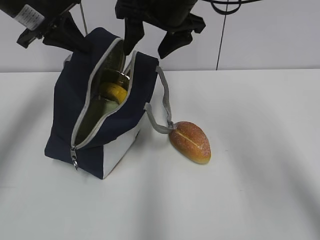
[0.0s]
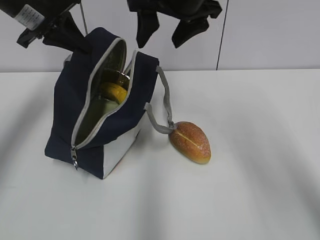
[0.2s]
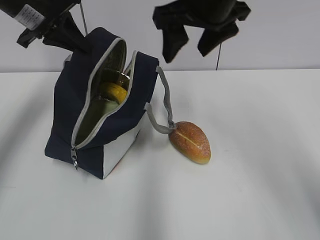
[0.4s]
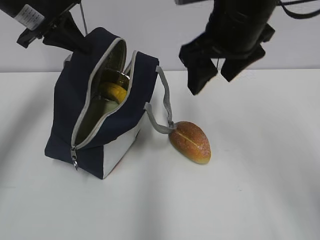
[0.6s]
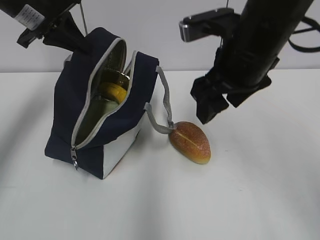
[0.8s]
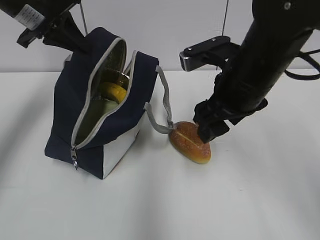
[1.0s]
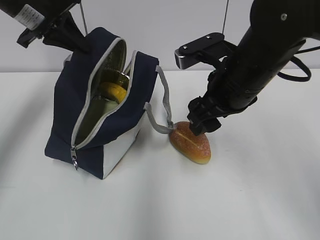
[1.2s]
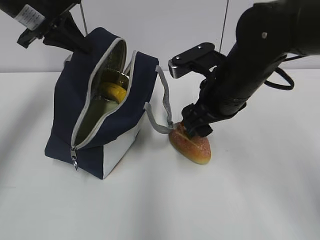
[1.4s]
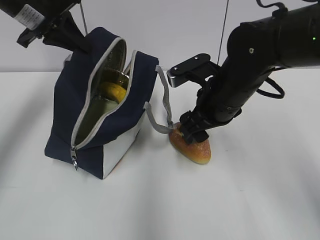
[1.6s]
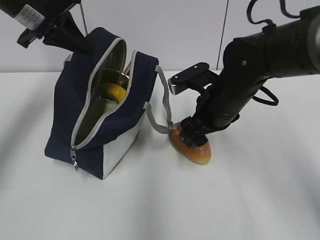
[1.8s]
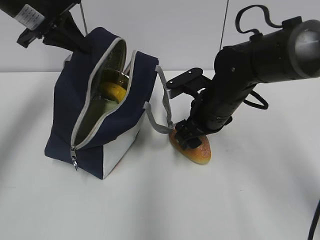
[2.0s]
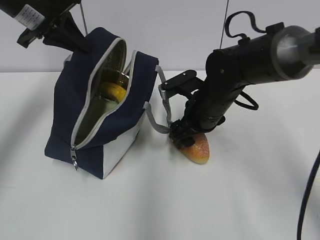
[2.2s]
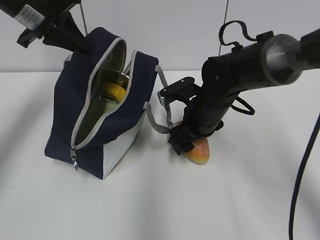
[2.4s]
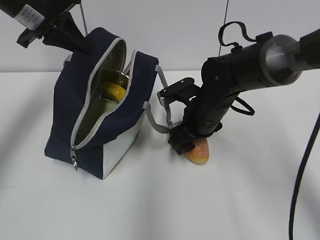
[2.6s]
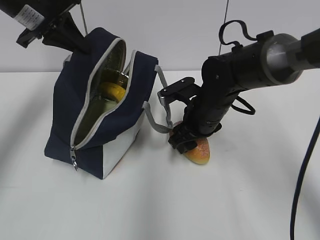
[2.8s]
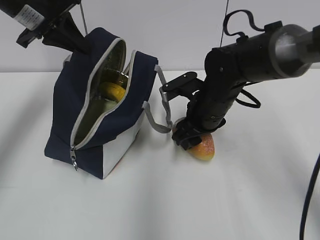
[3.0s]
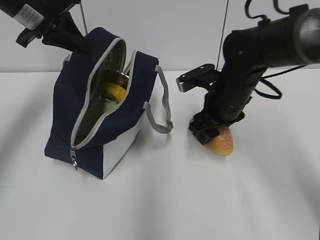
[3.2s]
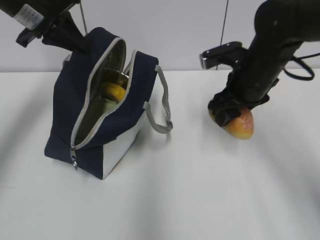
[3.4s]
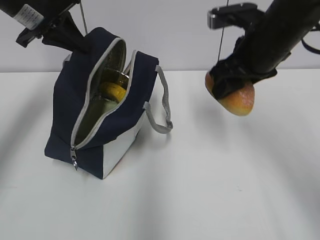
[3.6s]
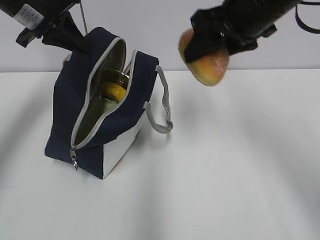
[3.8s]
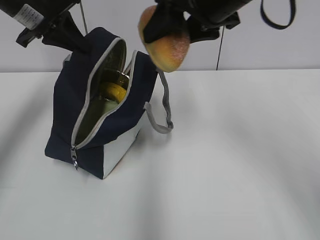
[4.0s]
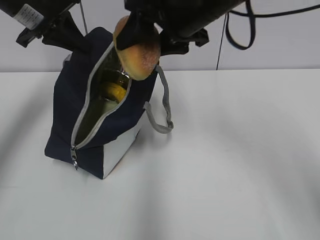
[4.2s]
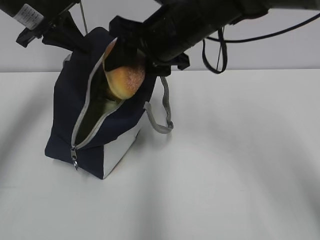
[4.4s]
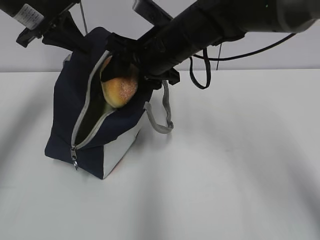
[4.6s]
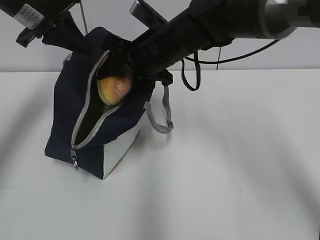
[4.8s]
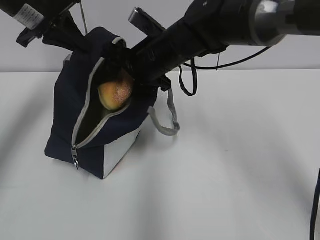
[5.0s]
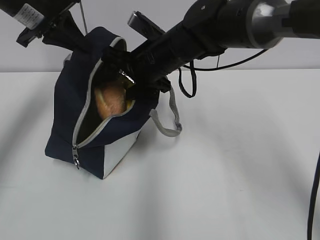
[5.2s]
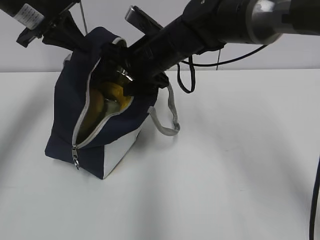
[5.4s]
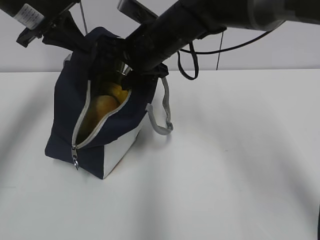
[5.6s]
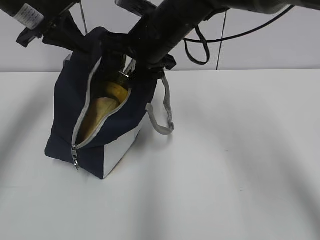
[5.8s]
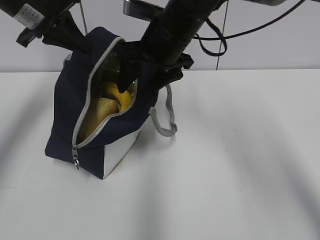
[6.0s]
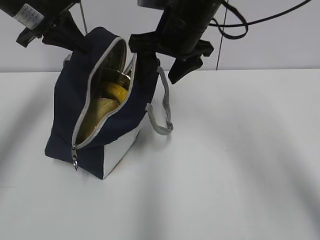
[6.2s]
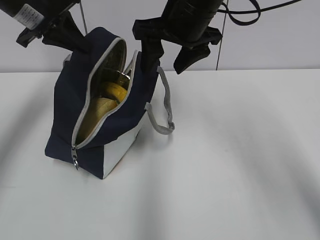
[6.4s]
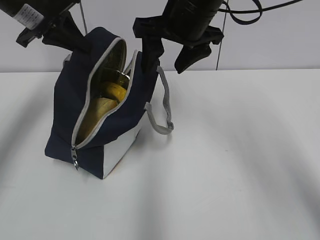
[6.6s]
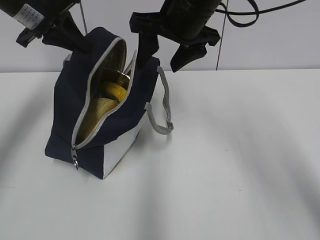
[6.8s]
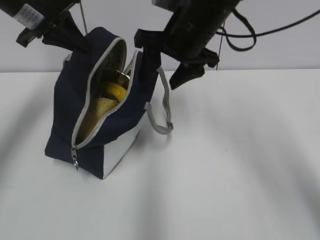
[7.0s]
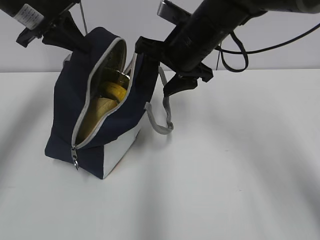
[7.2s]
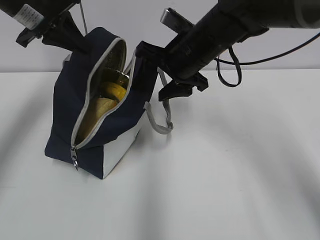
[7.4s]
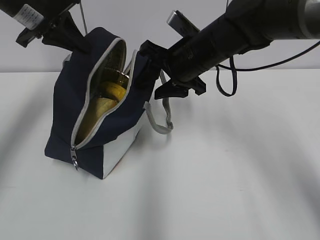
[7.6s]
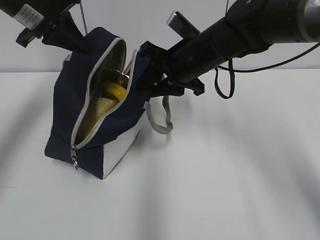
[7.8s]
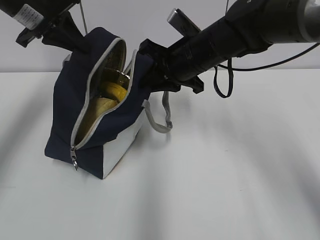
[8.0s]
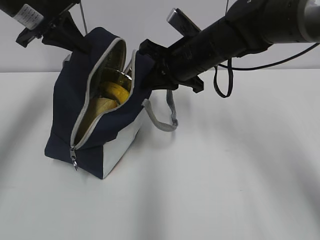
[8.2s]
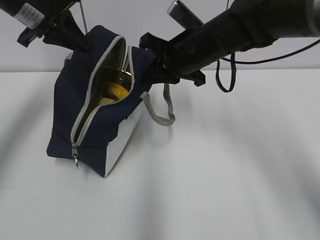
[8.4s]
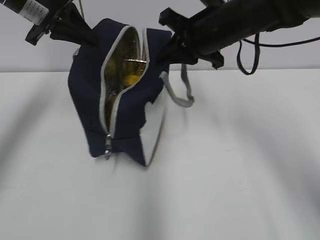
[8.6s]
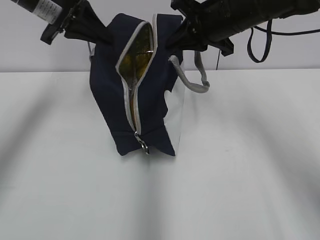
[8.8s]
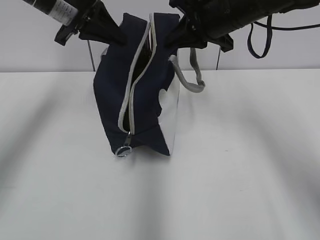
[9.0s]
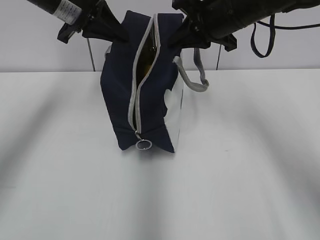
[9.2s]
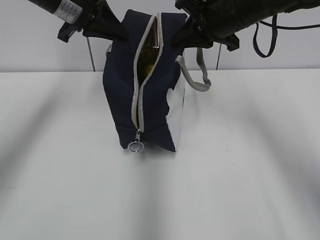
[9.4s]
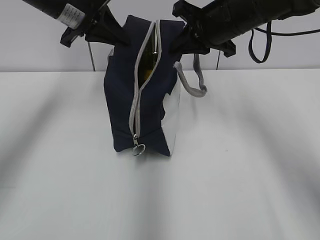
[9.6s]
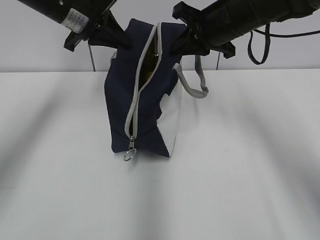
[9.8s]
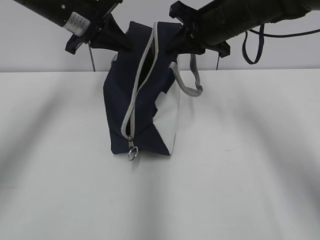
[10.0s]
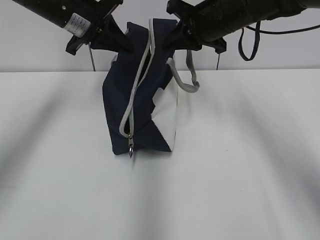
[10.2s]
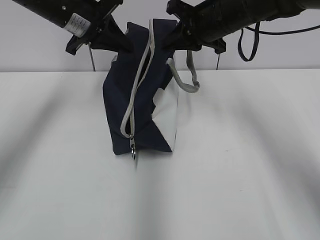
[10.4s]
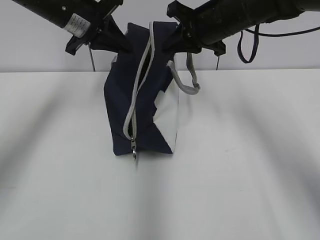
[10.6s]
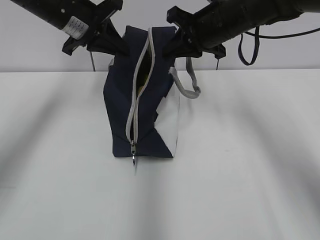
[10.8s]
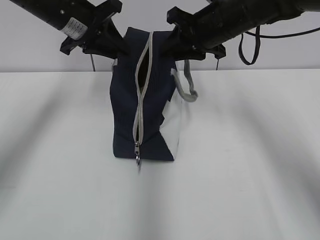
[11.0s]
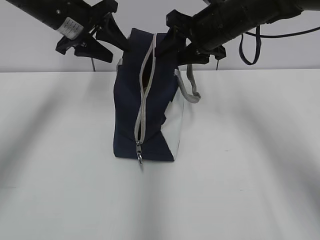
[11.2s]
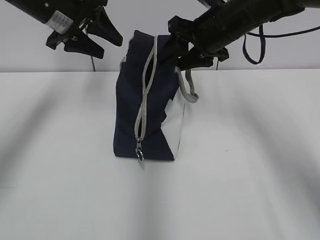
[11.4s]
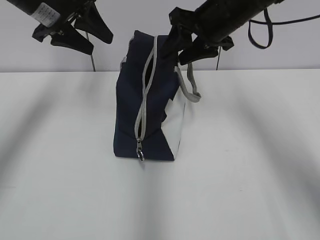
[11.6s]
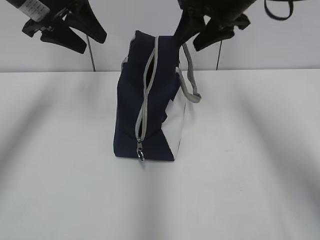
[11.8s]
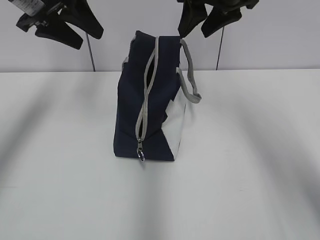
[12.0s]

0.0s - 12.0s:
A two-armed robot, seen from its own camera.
Step, 0.0s - 2.6s: Grab the bread with your right hand.
Step, 5.6s - 8.0s: Grab the lunch bag with your right hand.
Step, 8.4s - 11.0s: Move the lunch bag to the right.
0.0s - 1.6s: The right gripper is displaced downward, backward and to the right by about 15 cm.
1.6s - 3.0s: The right gripper goes approximately 5 cm downward.
3.0s - 4.4s: The right gripper shifts approximately 15 cm upward and to the left.
6.0s - 7.6s: The right gripper shifts by some 5 cm.
7.6s - 9.0s: The left gripper shifts approximately 5 cm to the right. The right gripper heads upward, covering about 5 cm, and closes.
9.0s - 10.4s: The grippers move only a little.
10.4s - 12.0s: The left gripper ends up approximately 5 cm from where it was, and opens its fingers. Meanwhile the right gripper heads upward, covering approximately 5 cm, and opens up.

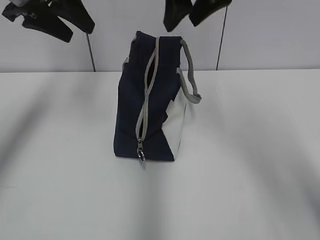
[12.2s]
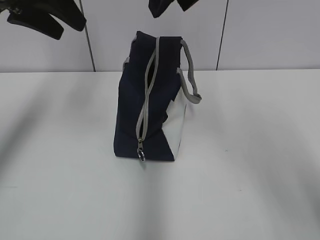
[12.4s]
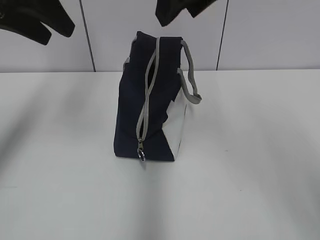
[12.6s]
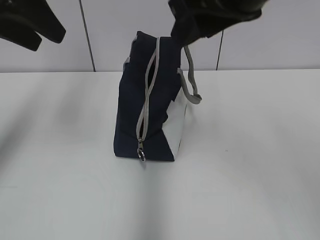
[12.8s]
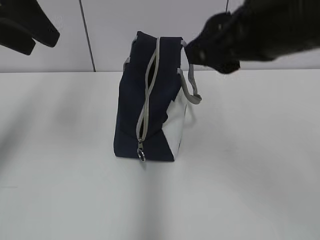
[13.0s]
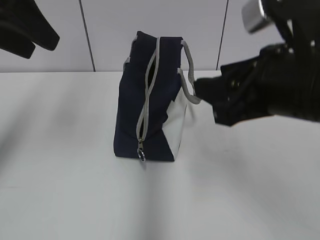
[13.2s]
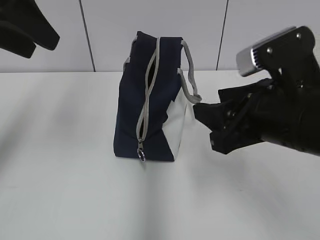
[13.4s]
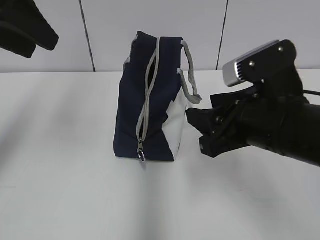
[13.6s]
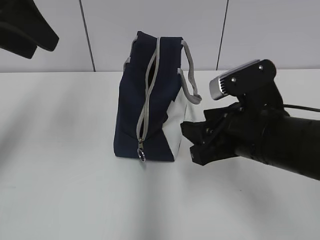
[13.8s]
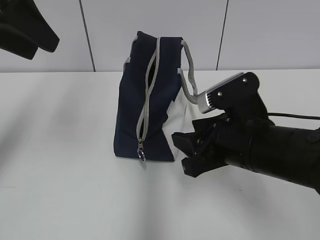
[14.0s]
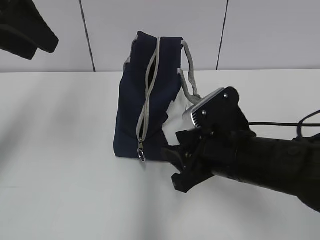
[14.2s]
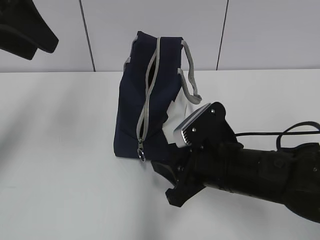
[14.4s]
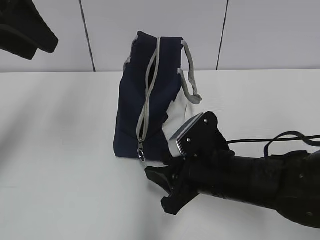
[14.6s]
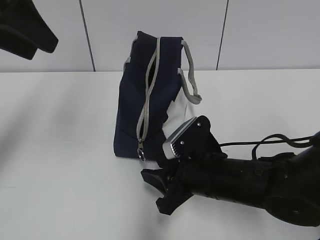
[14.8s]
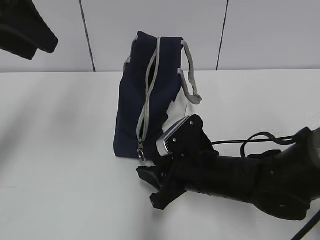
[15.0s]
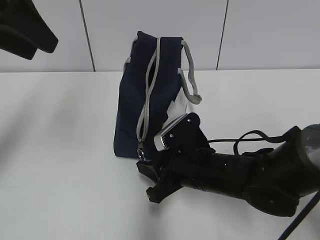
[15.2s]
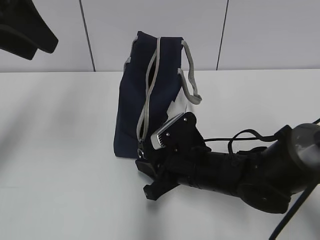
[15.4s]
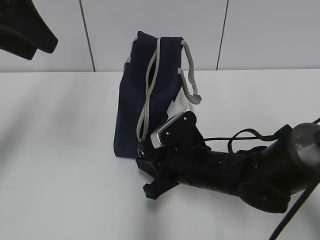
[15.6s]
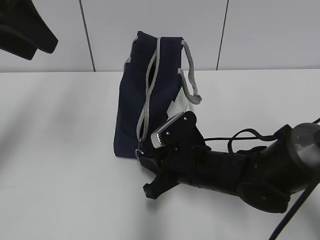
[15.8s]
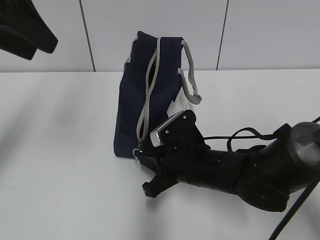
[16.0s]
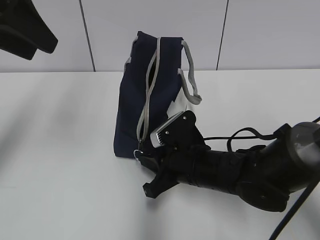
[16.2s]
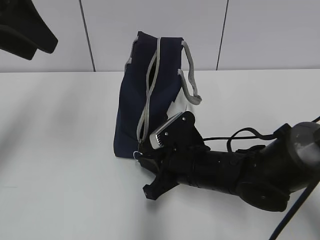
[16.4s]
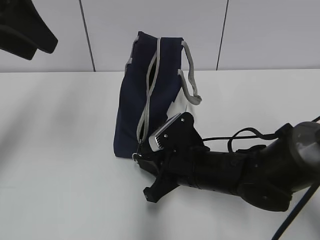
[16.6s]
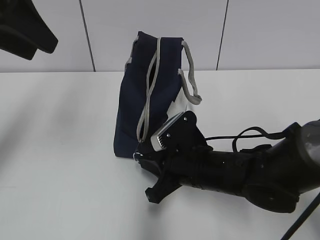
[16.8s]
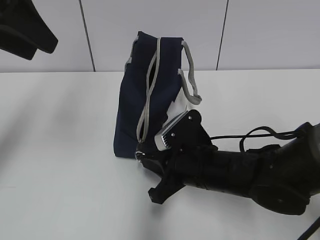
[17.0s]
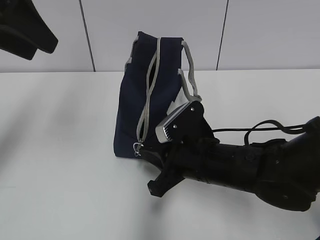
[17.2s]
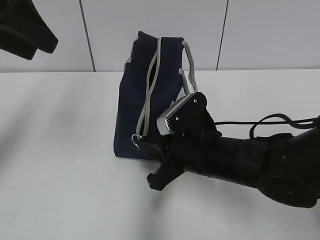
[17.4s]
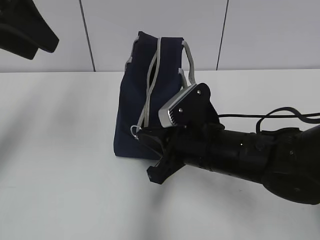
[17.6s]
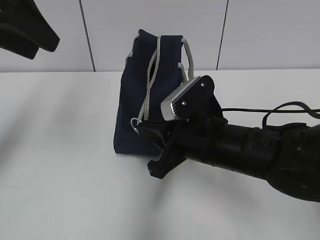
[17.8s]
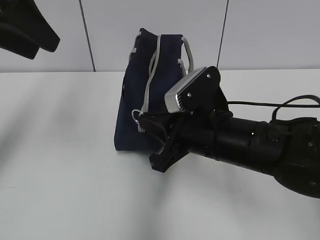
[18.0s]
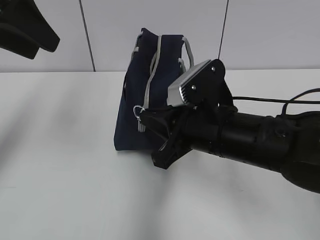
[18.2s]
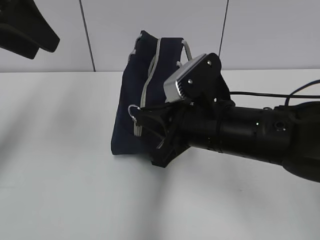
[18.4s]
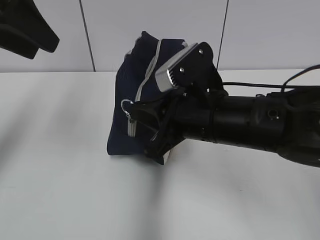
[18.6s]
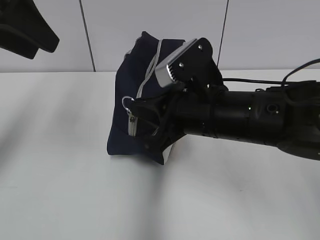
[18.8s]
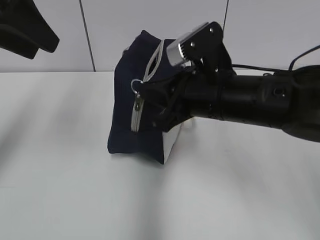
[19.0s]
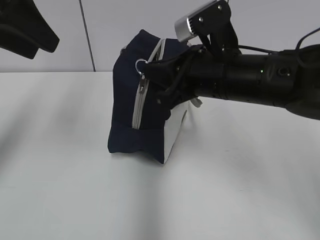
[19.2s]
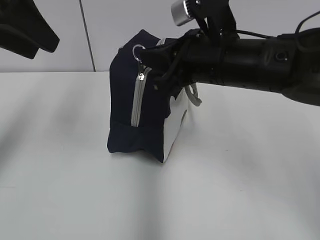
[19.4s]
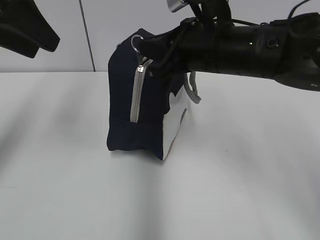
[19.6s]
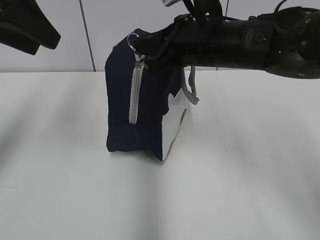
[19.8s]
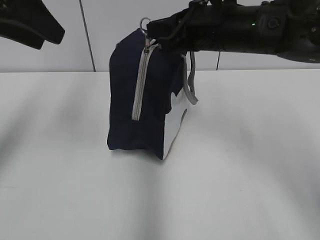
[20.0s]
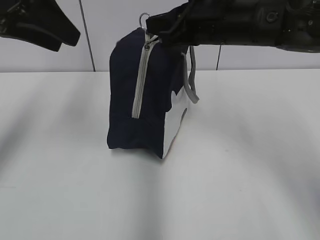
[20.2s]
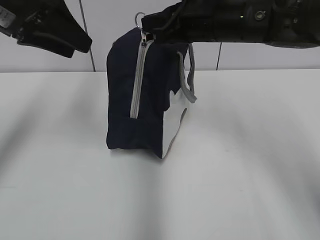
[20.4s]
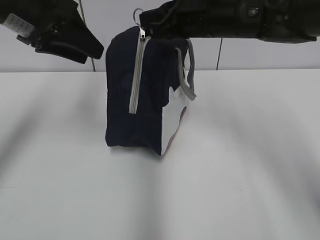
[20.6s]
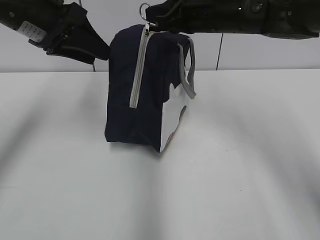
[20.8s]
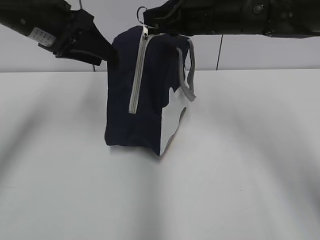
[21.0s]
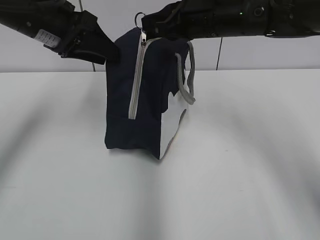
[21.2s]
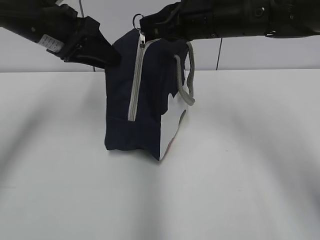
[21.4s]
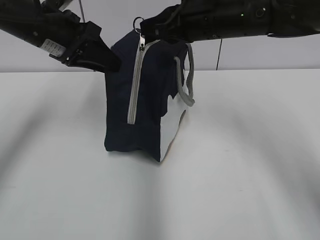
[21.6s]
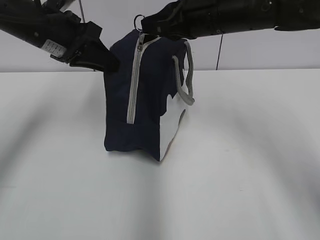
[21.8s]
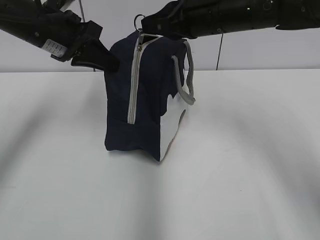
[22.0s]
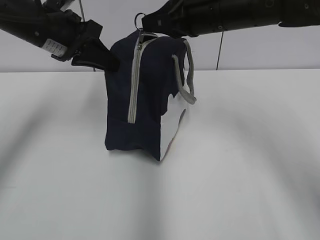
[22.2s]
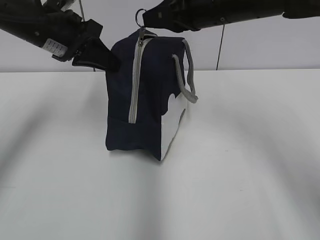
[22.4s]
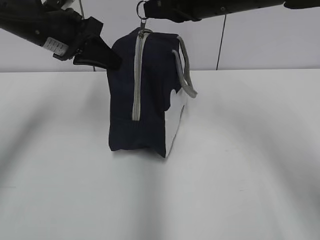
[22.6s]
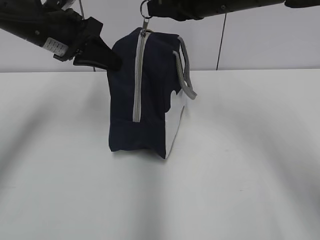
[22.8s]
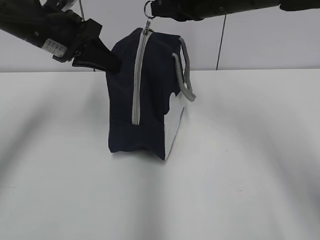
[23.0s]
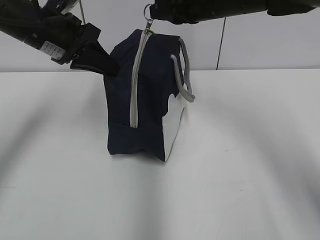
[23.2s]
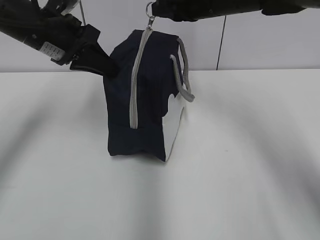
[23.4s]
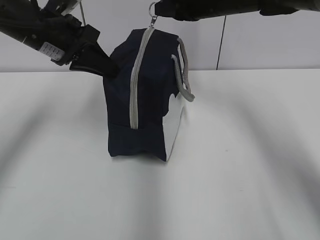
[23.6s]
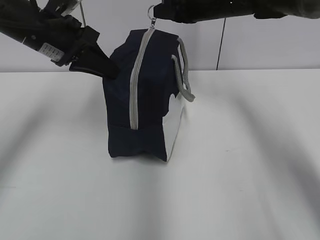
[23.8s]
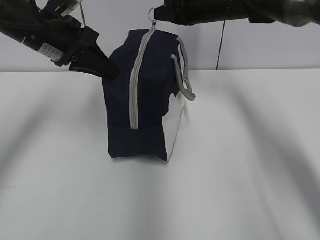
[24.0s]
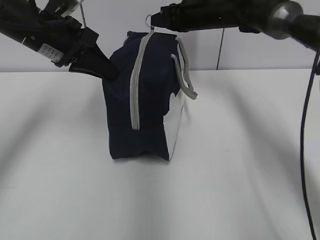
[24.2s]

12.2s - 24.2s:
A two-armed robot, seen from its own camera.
Step, 12.2s - 22.0s: Grab the lunch bag with your left hand.
12.2s - 13.8s: The right gripper goes approximately 25 cm downward and backward. Meanwhile the left gripper moves backward, about 10 cm.
13.8s - 15.2s: The right gripper heads downward and to the left, covering some 10 cm.
15.2s - 16.6s: The right gripper closes up.
16.6s - 18.2s: The right gripper heads upward, covering some 10 cm.
18.2s - 19.8s: The right gripper shifts approximately 10 cm forward and upward.
19.8s - 21.2s: The left gripper heads forward and downward, covering approximately 10 cm, while the right gripper travels forward by about 5 cm.
21.2s - 22.6s: The left gripper closes its fingers.
22.6s - 24.2s: The right gripper shifts about 20 cm forward and downward.
